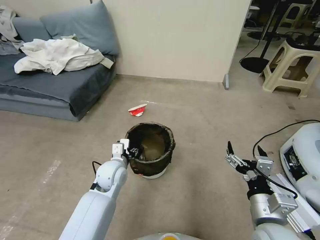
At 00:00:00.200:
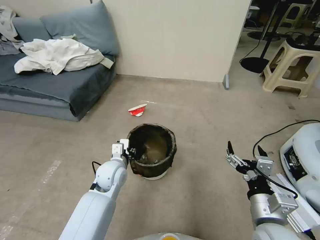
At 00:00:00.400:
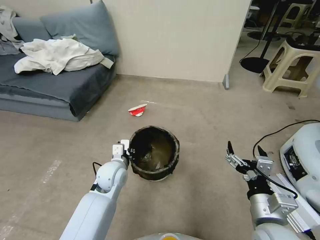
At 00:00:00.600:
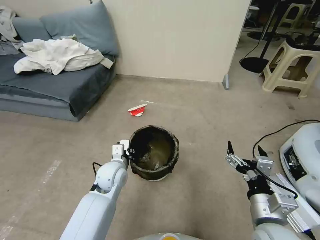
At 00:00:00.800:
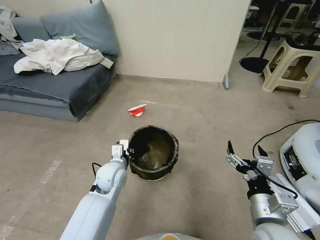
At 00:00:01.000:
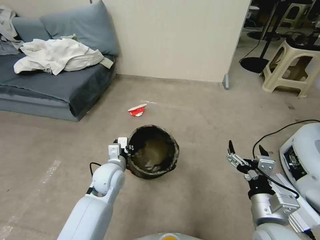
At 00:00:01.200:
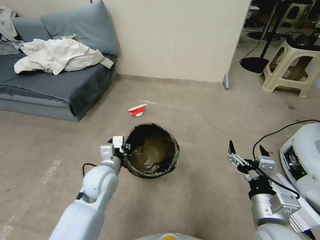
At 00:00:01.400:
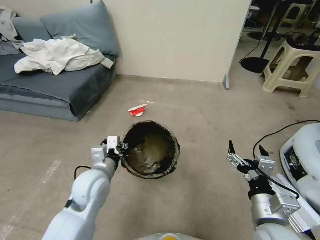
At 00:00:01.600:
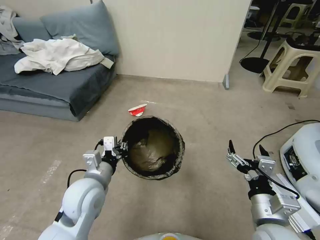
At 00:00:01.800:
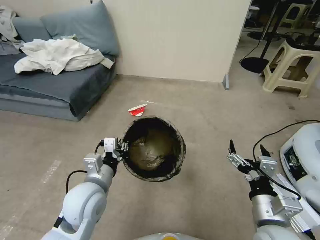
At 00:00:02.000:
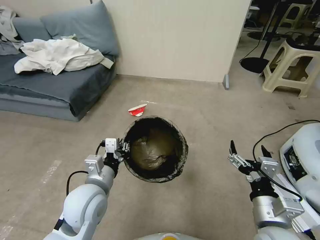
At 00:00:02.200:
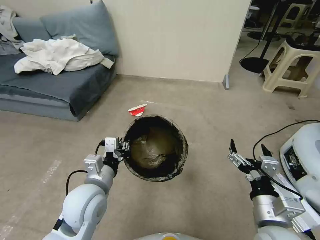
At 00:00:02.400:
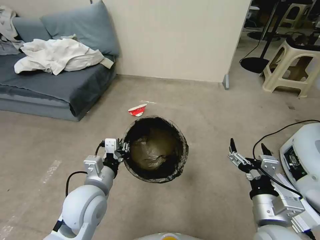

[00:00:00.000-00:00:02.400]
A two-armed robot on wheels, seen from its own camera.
Task of the whole recording: Pick up the trash can from the floor.
00:00:00.000 to 00:00:01.200: The left gripper changes place by about 5 cm, and closes up.
00:00:01.200 to 00:00:02.400: The left gripper heads backward, covering about 10 cm.
